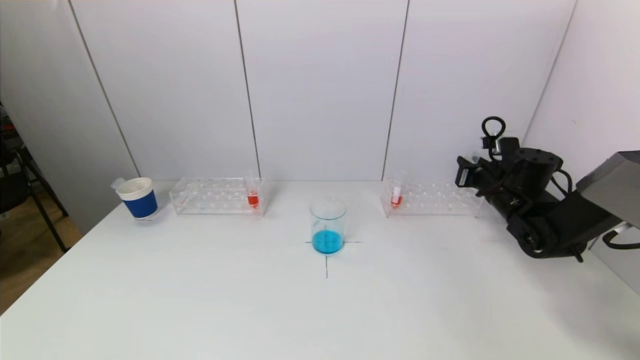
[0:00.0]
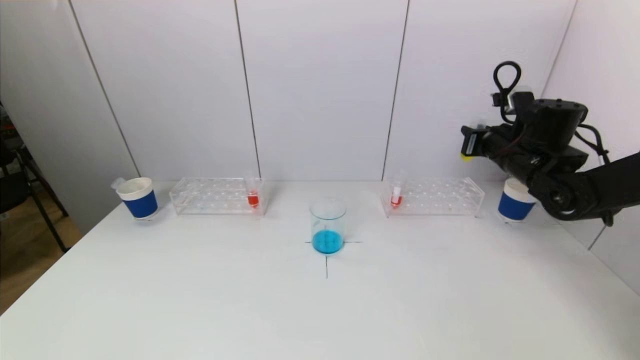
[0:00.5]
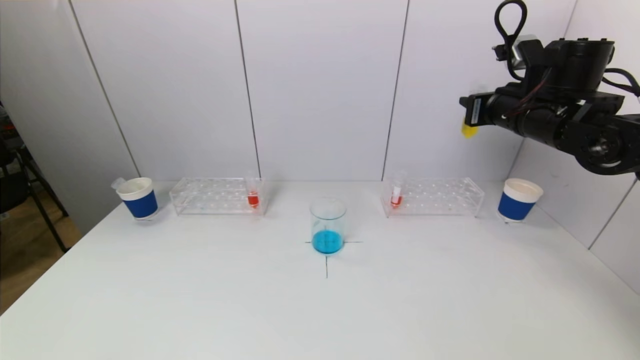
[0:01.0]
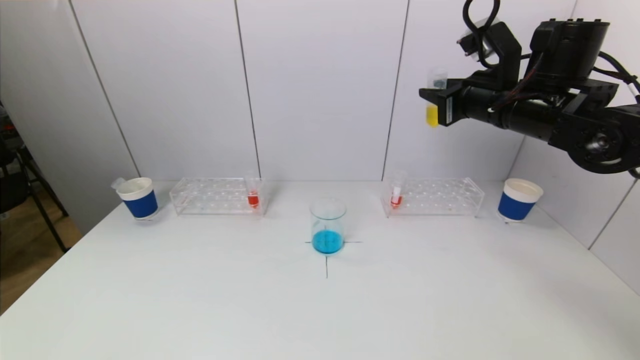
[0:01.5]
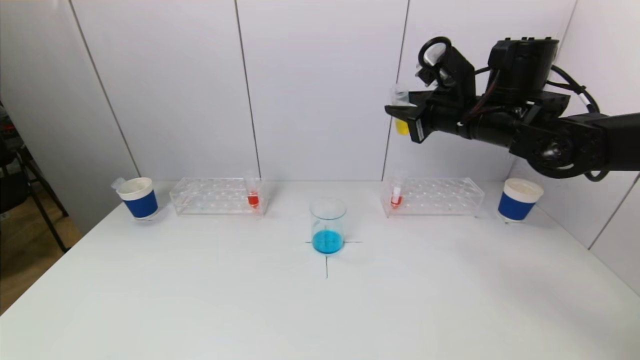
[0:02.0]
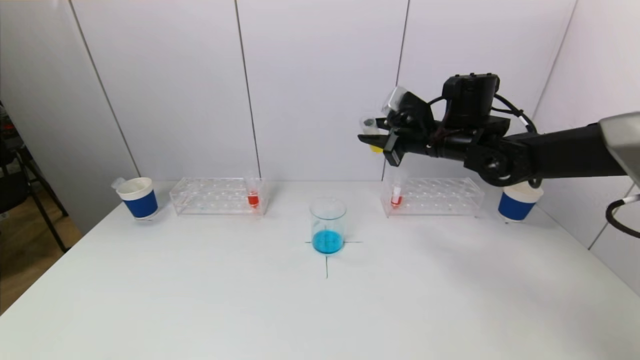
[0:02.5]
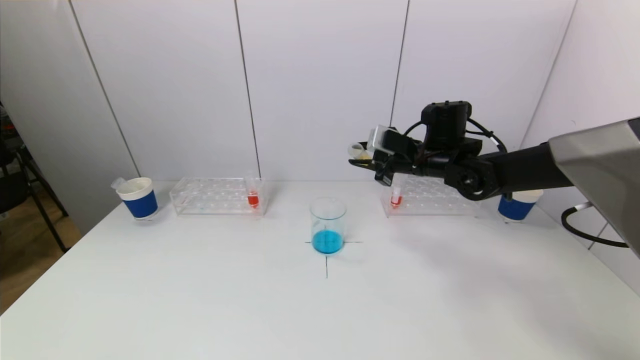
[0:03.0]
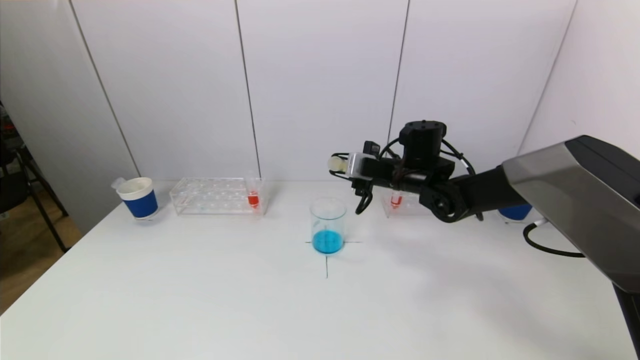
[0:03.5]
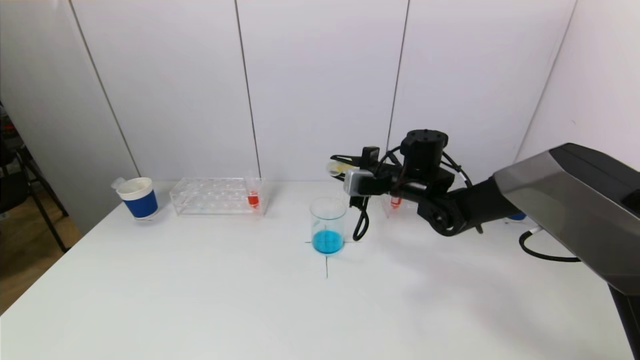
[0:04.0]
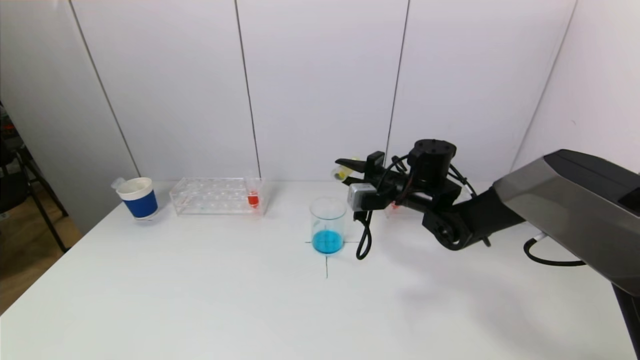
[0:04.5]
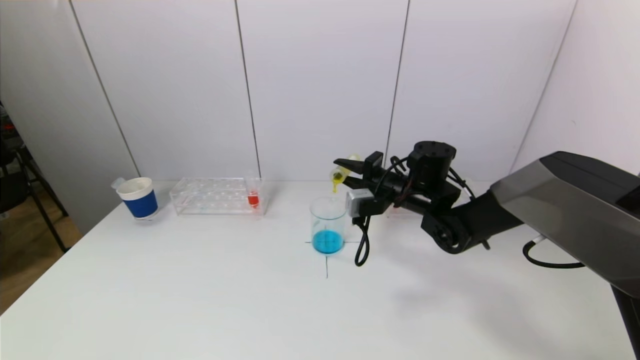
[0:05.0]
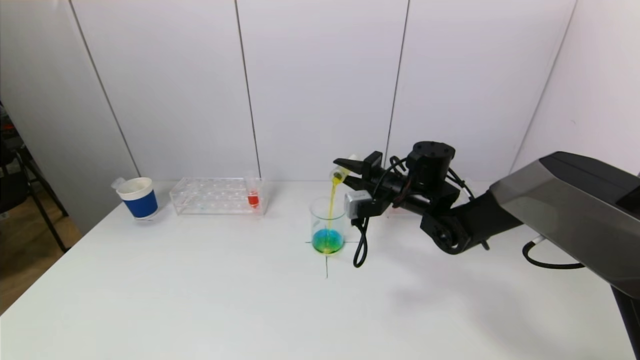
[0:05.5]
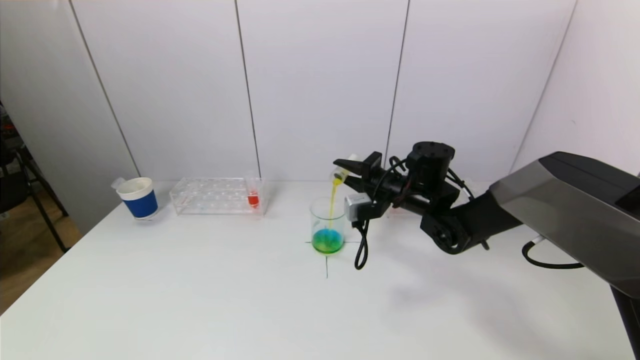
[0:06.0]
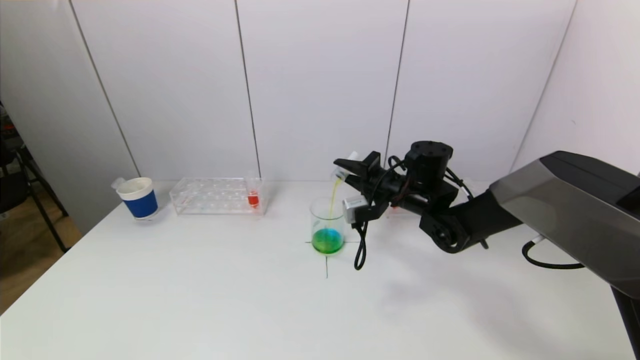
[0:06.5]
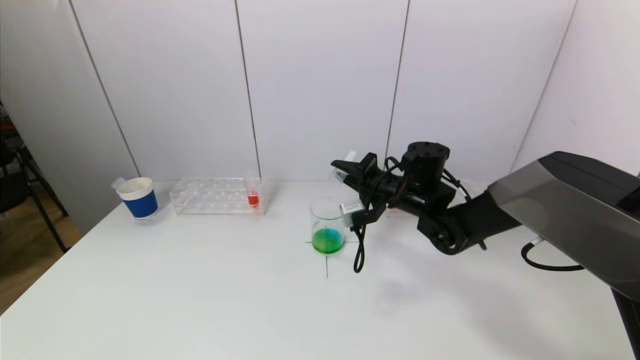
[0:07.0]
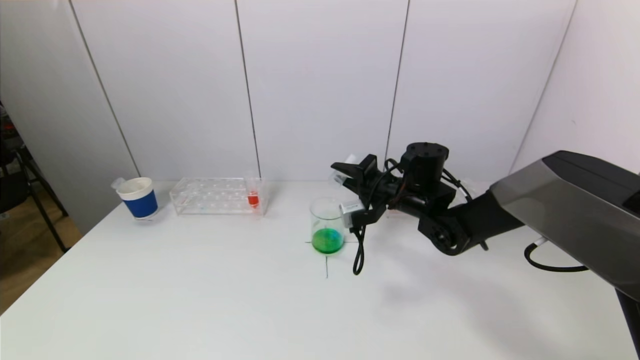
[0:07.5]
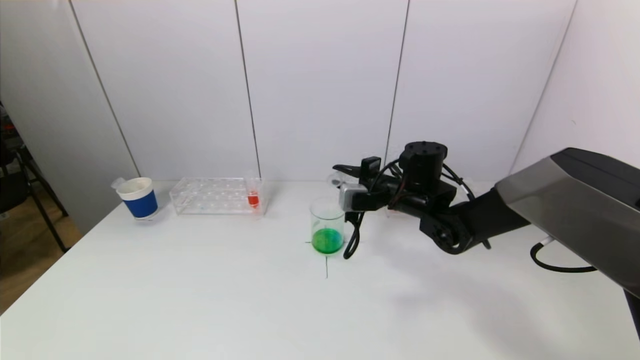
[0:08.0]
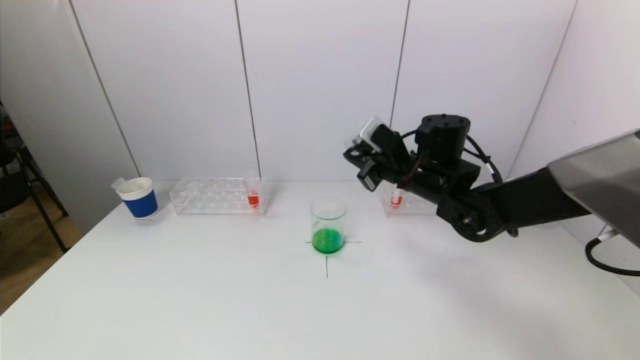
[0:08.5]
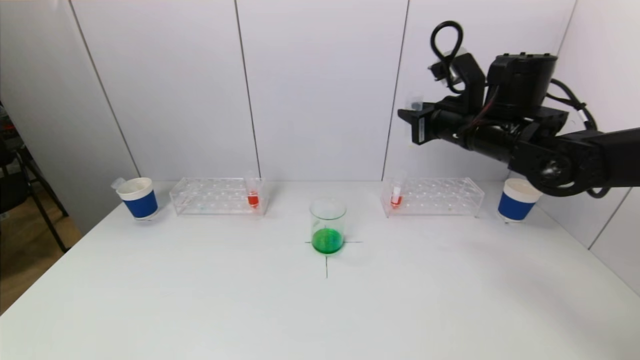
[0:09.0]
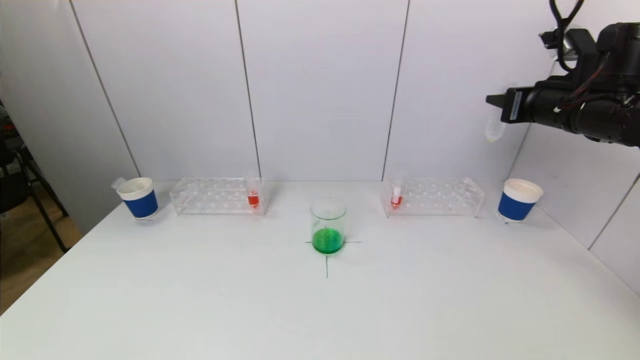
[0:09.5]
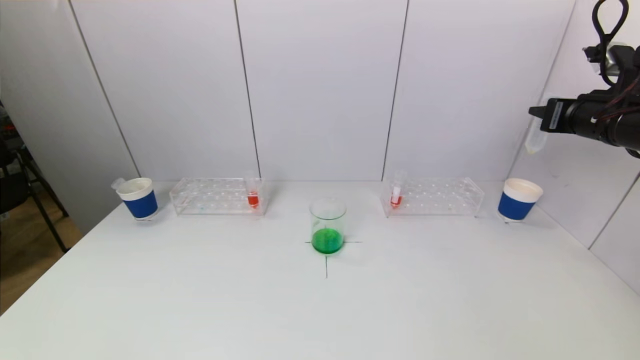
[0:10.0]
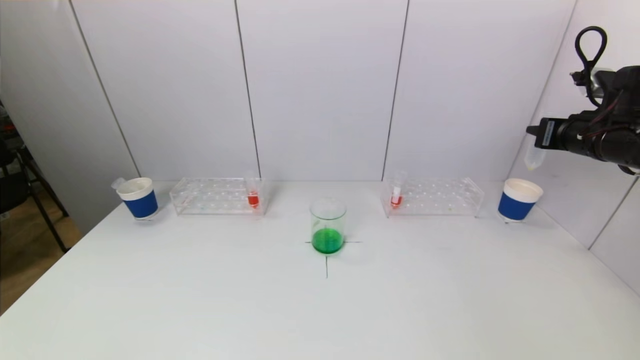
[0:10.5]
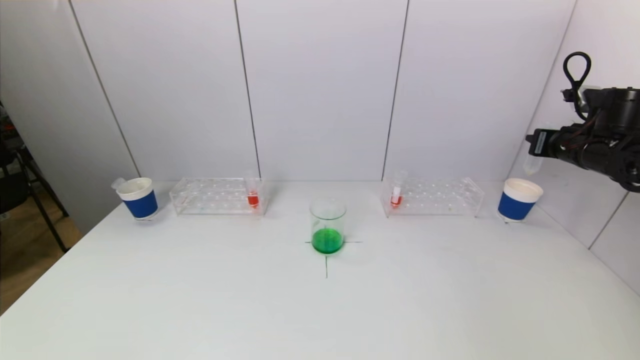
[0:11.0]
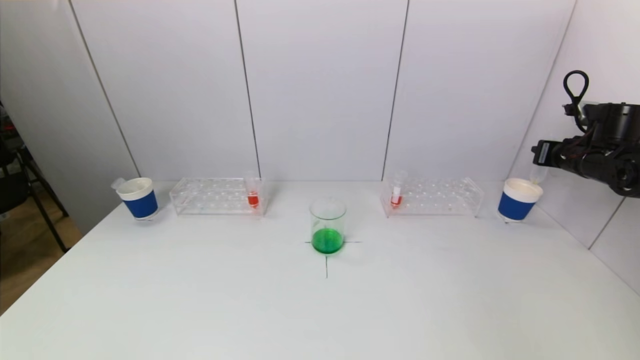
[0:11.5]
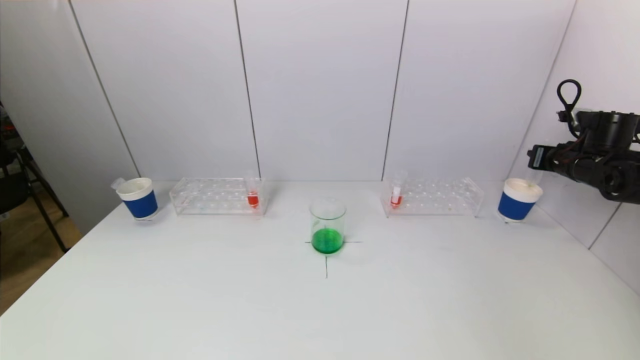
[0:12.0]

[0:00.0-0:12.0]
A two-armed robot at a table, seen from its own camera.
Task of the whole recording: pick up a test tube with pigment on left test tube rack and a test tube with pigment on right test tube rack by grippers and pour them into the beaker.
Step, 0:00.0 to 0:07.5: Pour the yellow reagent into the graduated cylinder with the right gripper.
0:00.0 to 0:02.0: The right gripper heads upward and to the left, covering roughly 20 cm.
0:02.0 to 0:04.0: The right gripper travels downward and to the left by roughly 15 cm.
0:08.0 to 0:10.0: The right gripper is displaced to the right and upward by some 30 cm.
0:10.0 to 0:12.0: The right gripper travels downward, forward and to the right by roughly 15 cm.

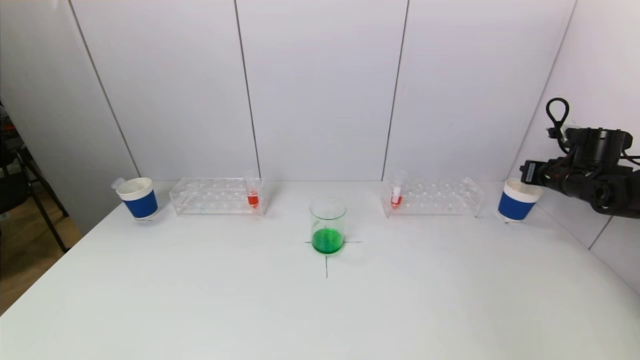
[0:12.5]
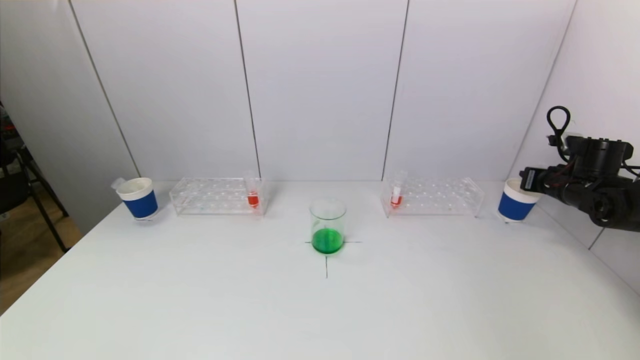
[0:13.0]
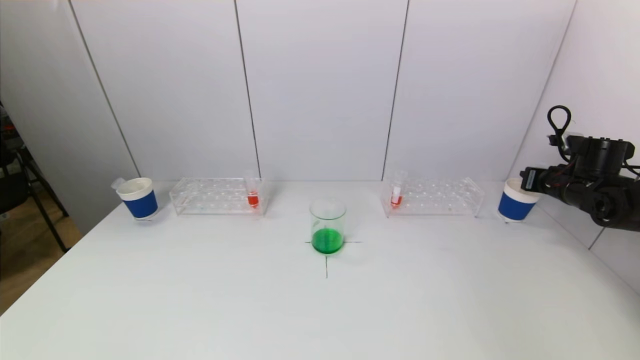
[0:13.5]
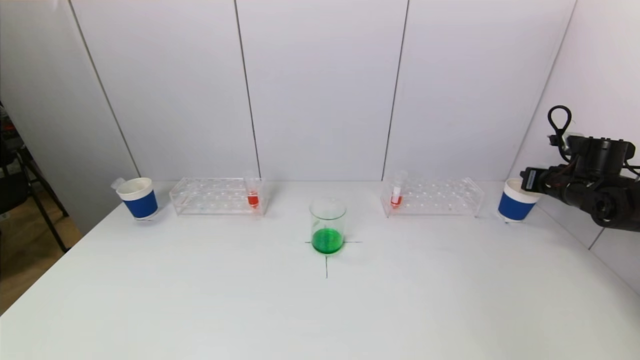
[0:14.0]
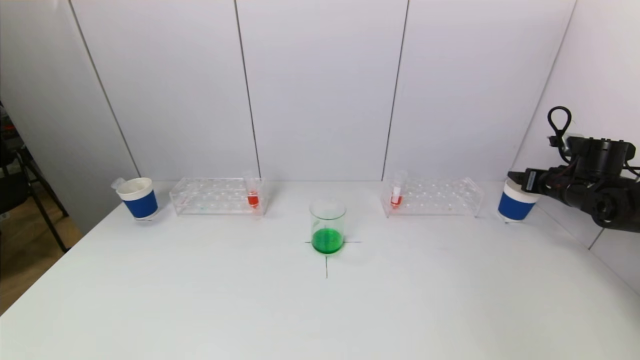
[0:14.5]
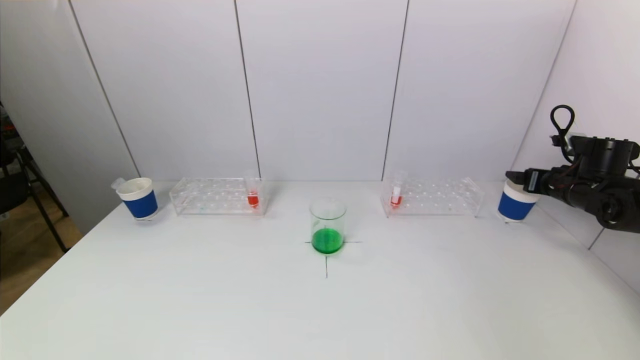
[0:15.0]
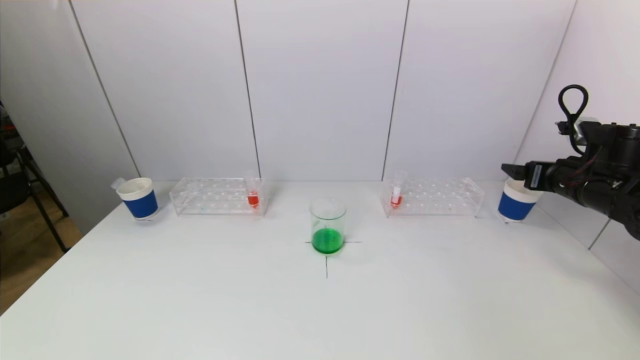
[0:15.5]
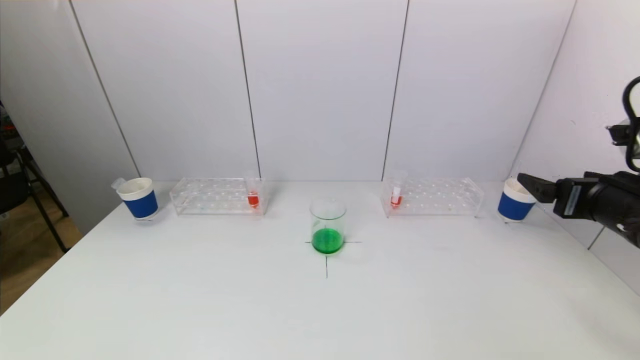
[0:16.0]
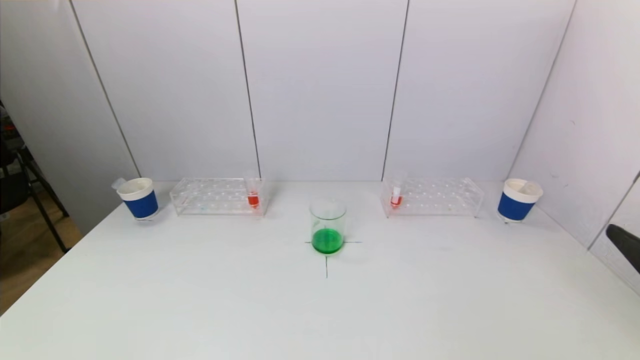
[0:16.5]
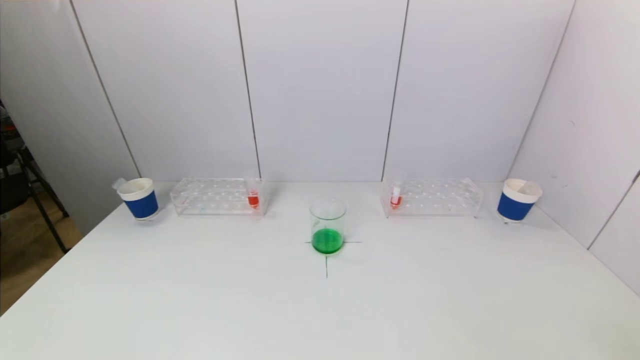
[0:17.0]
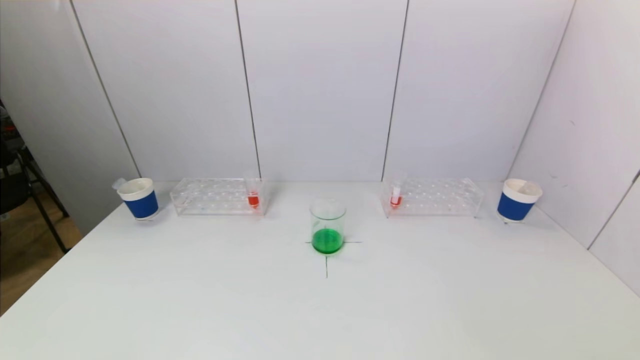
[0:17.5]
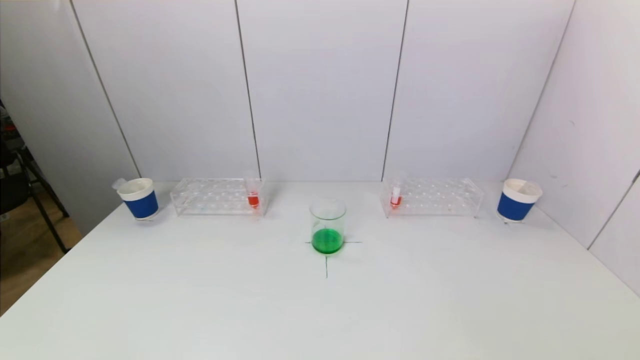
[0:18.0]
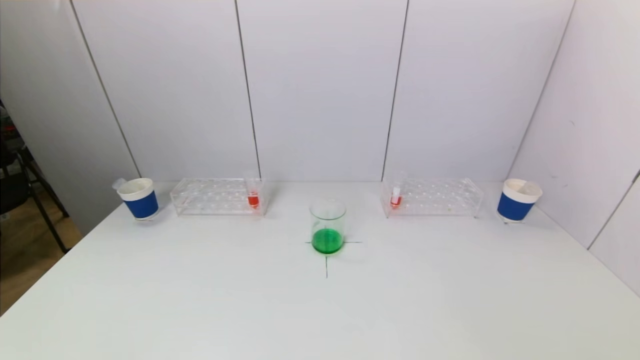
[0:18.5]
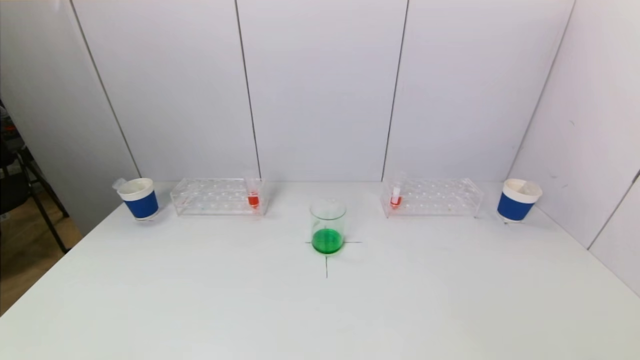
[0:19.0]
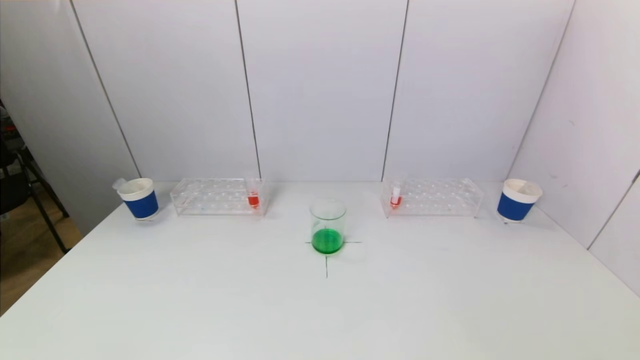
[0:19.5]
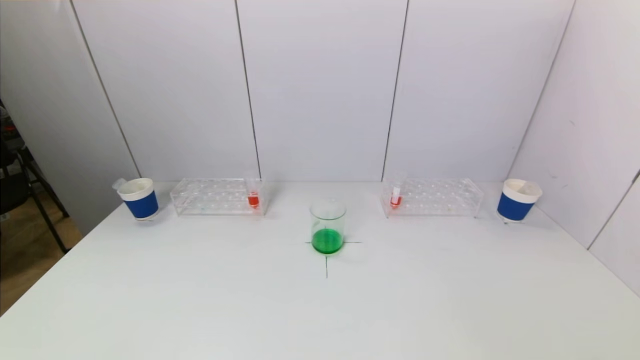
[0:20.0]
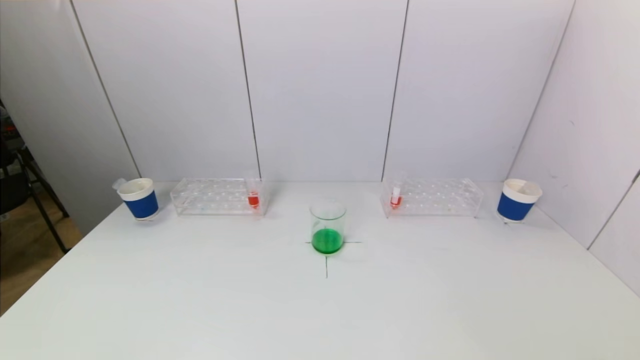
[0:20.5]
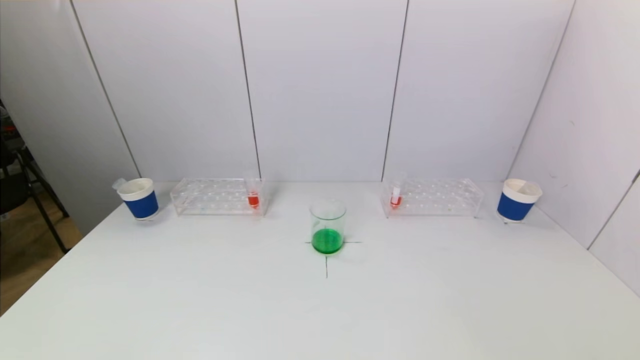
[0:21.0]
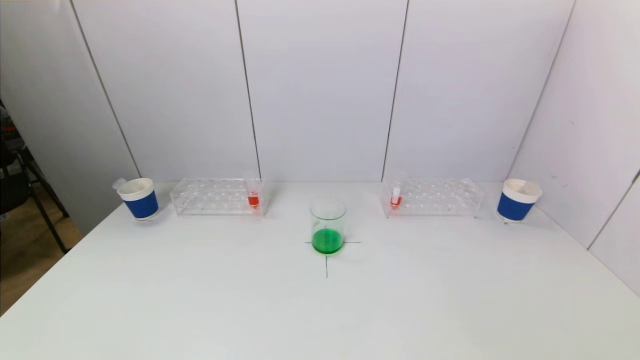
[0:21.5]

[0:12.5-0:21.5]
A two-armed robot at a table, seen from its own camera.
Task of the whole recording: pick up a test tube with pigment on left test tube rack and a test tube with pigment on right test tube rack by grippers and pour them into the beaker.
Step, 0:12.5 to 0:14.5: Place the test tube into the paper cup with the right gripper.
0:12.5 to 0:14.5: The right gripper opens its fingers.
0:14.5 to 0:17.0: The right gripper moves backward, about 40 cm.
0:19.5 to 0:21.5: Neither gripper changes place.
